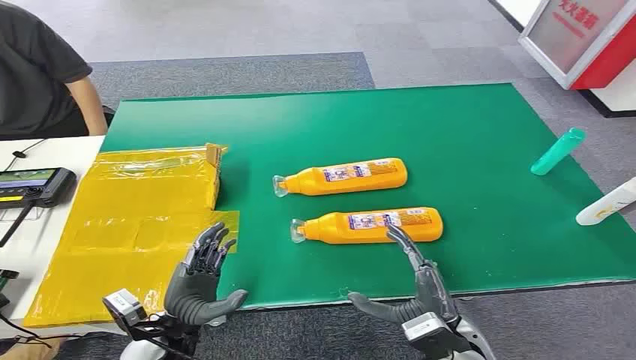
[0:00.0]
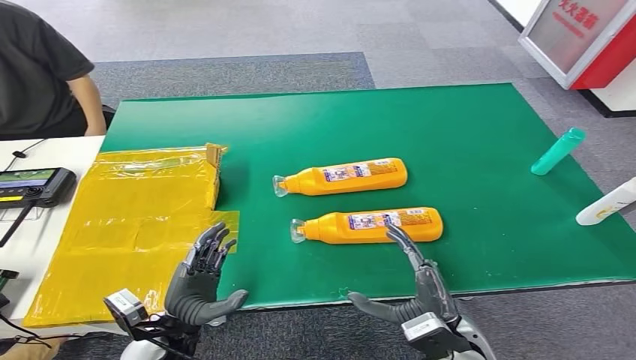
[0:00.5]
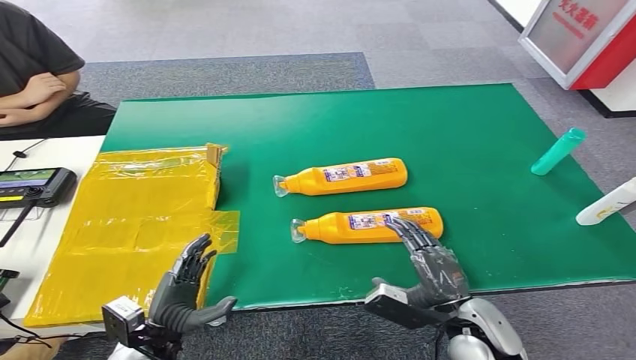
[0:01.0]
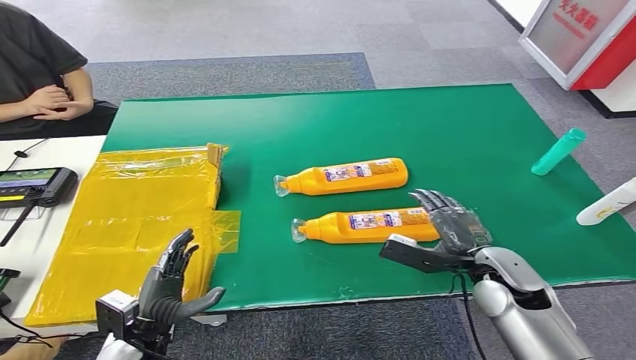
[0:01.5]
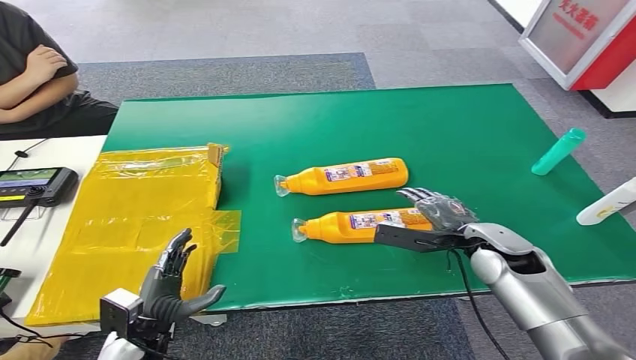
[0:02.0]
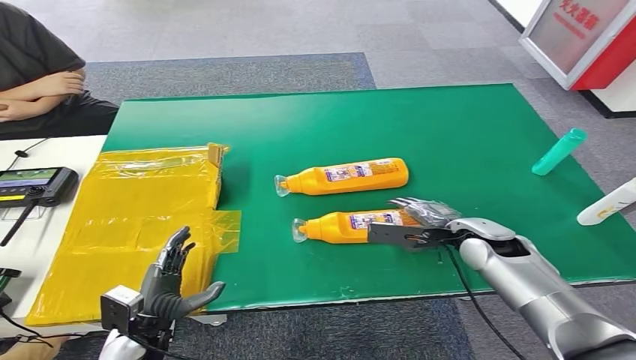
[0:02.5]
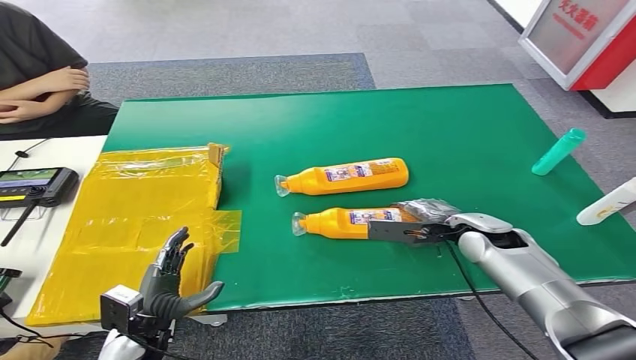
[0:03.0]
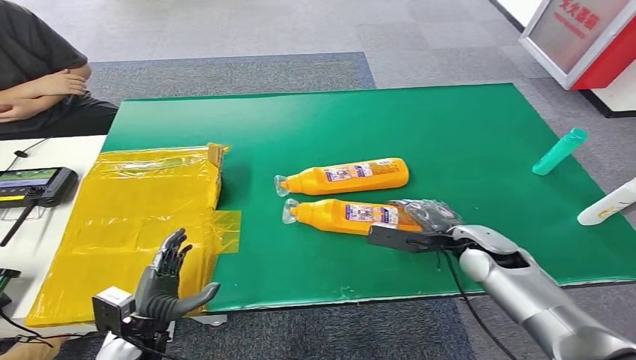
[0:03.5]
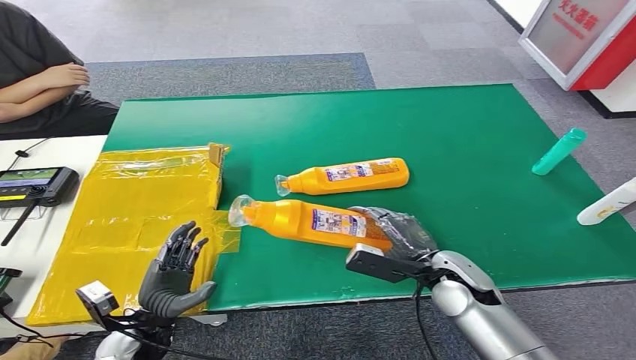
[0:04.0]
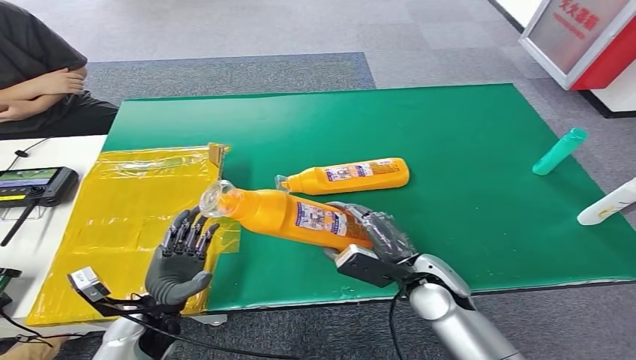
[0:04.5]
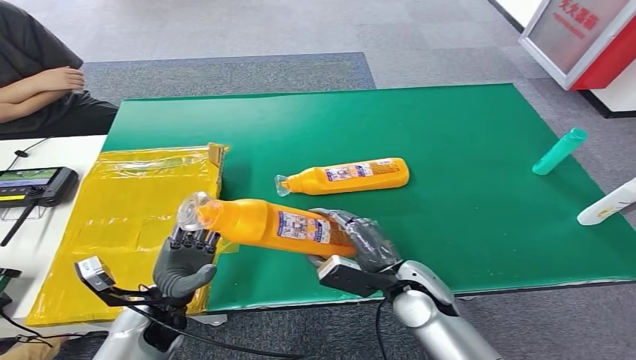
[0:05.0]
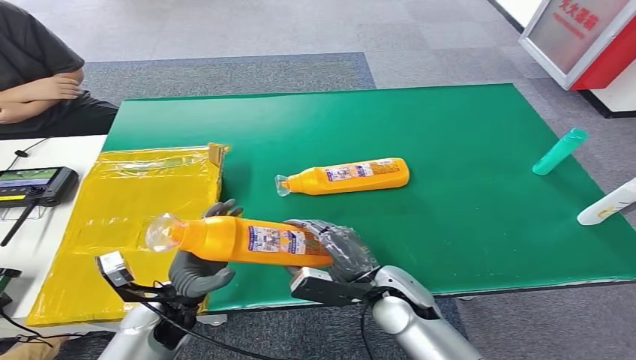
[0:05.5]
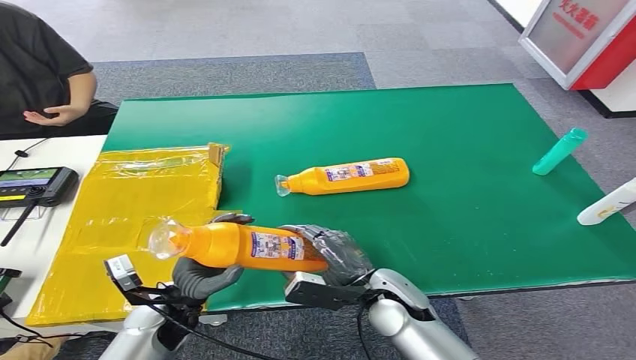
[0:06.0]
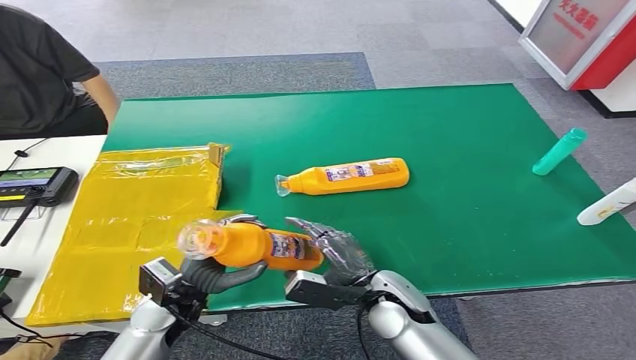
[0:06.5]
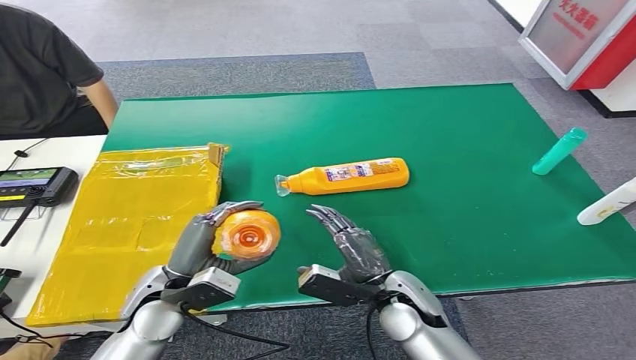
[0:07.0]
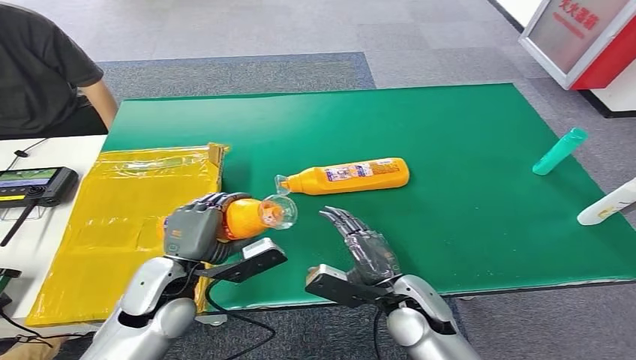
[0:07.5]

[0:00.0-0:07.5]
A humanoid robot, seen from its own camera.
Step, 0:00.0 to 0:04.5: Pick up the bottle from the table.
Step, 0:05.0 to 0:07.5: Turn the bottle to the front side.
0:02.0 to 0:04.0: The right hand heads to the left, covering about 5 cm.
0:04.0 to 0:05.5: The left hand ends up about 5 cm from where it was; the right hand heads to the left, covering roughly 10 cm.
0:05.5 to 0:07.5: The left hand is displaced upward by about 10 cm.
